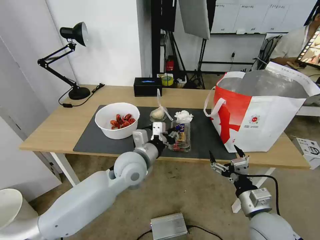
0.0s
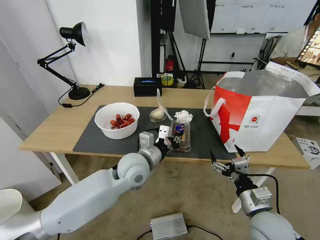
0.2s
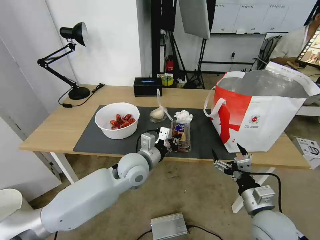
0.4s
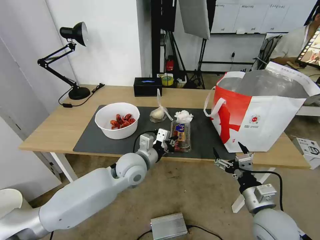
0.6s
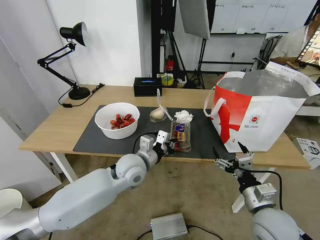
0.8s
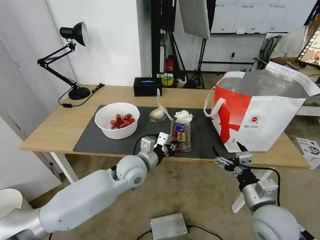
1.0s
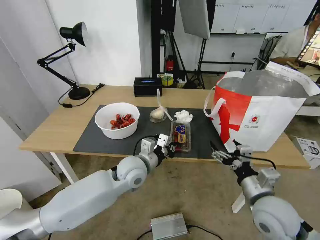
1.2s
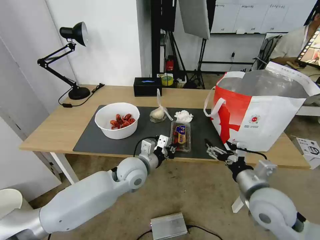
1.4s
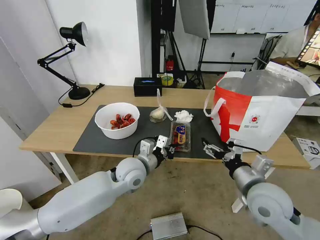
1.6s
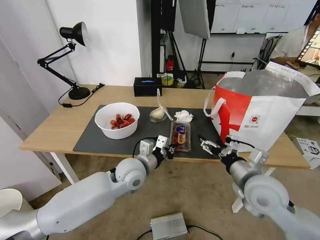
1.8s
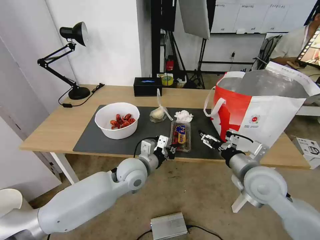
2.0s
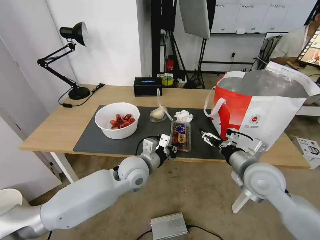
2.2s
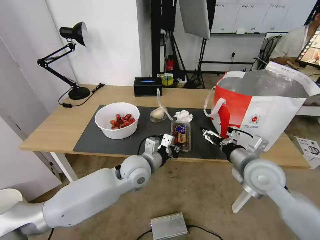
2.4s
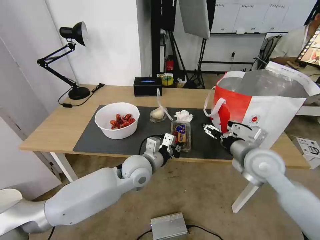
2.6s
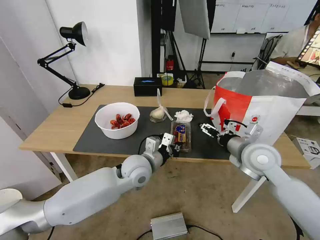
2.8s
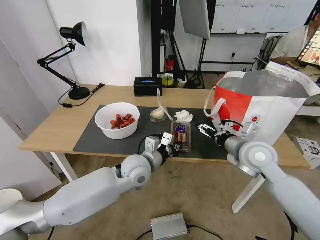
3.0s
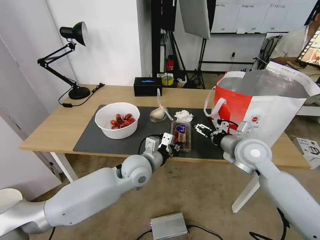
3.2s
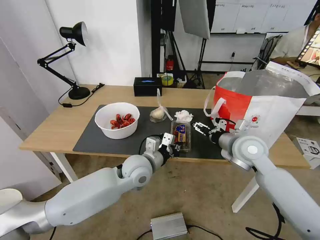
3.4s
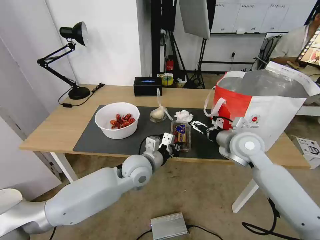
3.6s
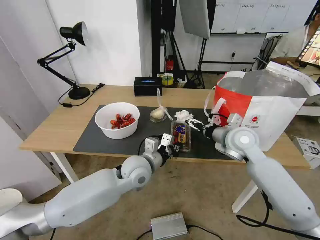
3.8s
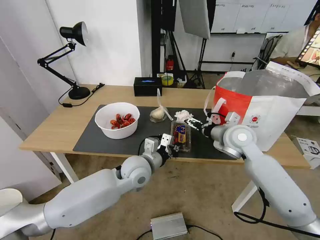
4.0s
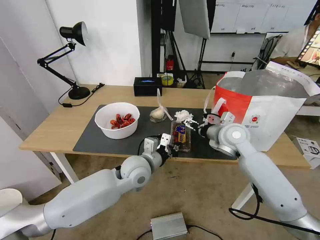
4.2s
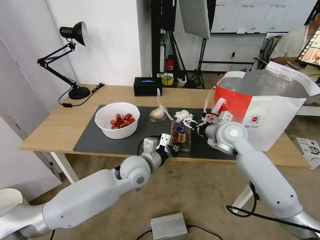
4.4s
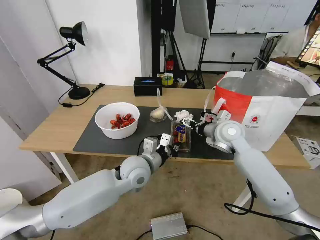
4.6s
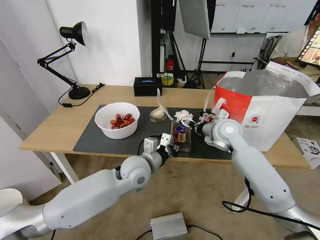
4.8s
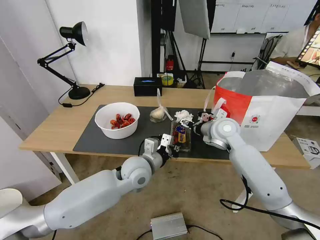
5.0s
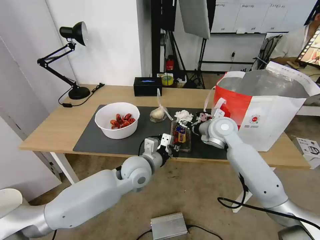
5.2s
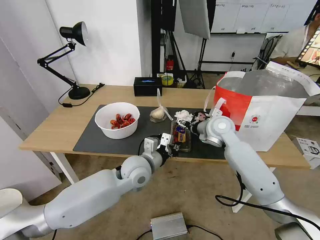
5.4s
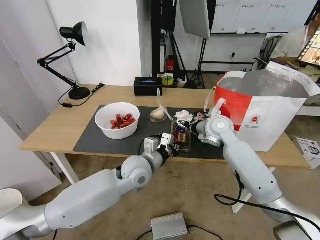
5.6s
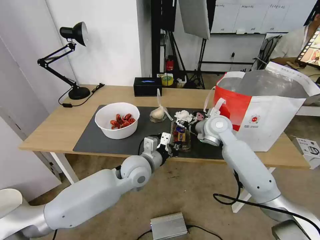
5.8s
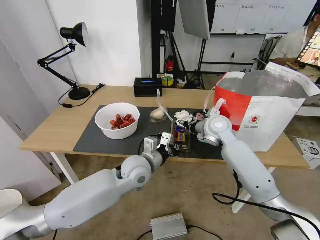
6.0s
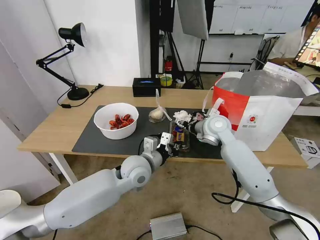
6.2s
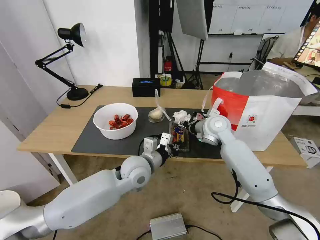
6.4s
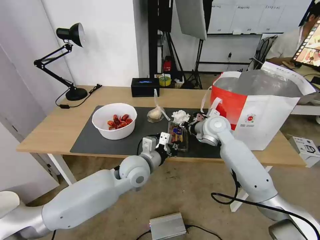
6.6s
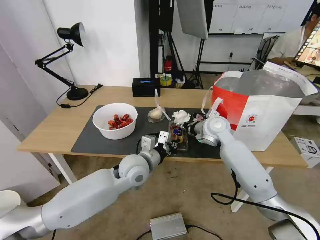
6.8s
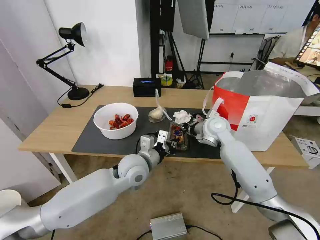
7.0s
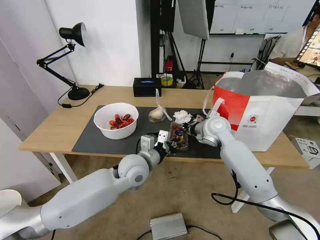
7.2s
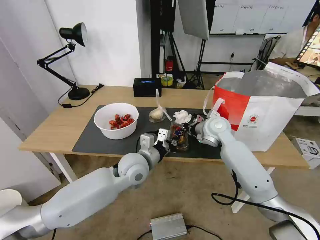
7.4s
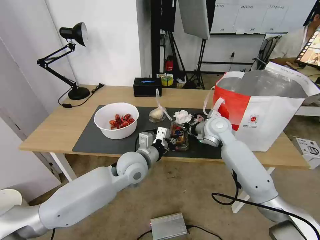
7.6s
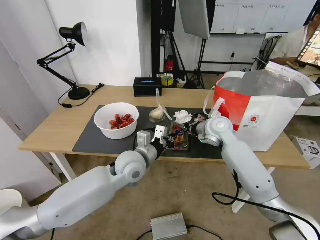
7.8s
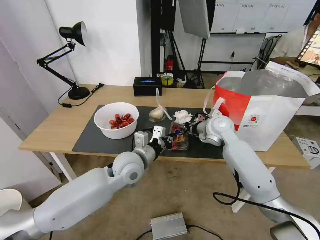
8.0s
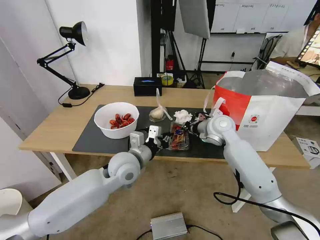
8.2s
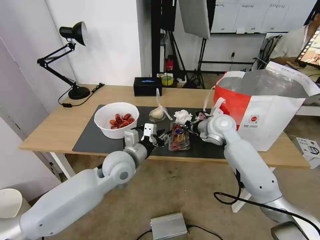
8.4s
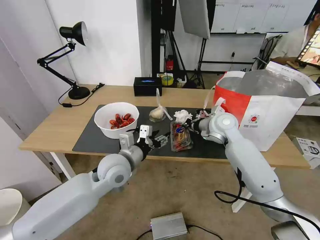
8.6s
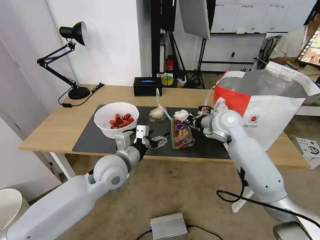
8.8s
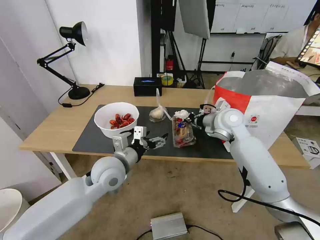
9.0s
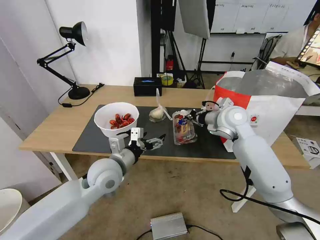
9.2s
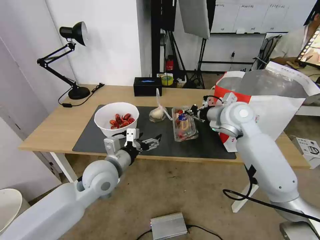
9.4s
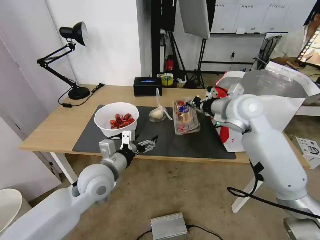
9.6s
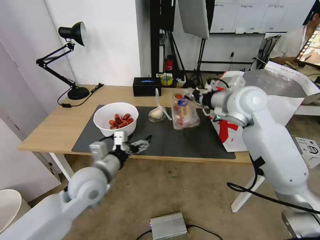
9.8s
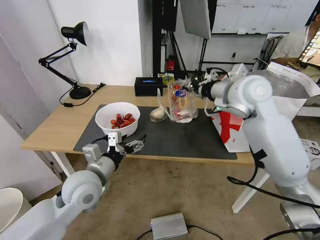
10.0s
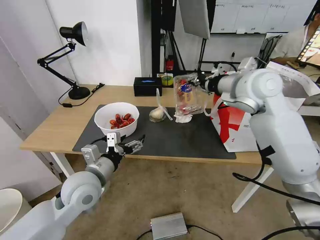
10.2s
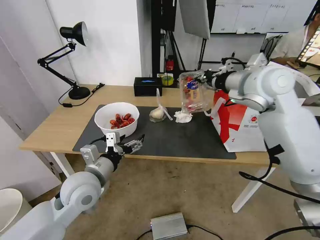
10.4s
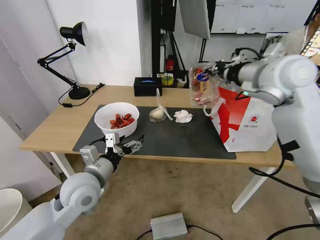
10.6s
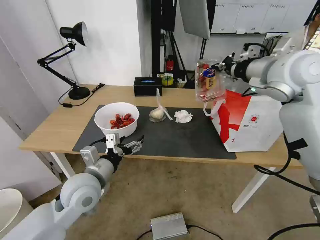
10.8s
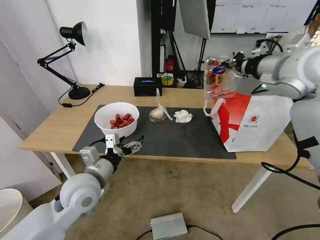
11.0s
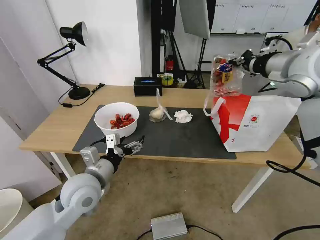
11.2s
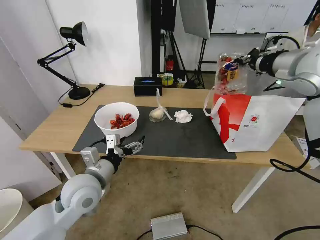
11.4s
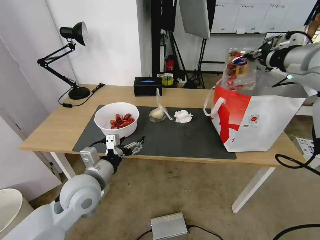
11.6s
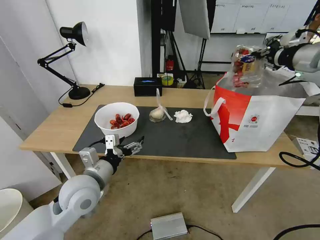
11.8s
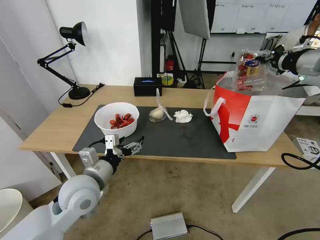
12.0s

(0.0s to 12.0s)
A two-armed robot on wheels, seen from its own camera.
Task of the whole recording: Pick up the trash from the table and place it into the takeout bag.
0.0s - 1.6s: The right gripper moves upward and forward, approximately 10 cm.
1.6s - 3.0s: The right gripper goes about 10 cm forward.
3.0s - 4.4s: The right gripper shifts approximately 10 cm forward.
4.4s - 6.0s: The right gripper ends up about 5 cm from where it was.
6.0s - 7.6s: The right gripper closes.
7.6s - 9.0s: The left gripper heads to the left, covering some 5 cm, and opens up, while the right gripper moves roughly 5 cm.
9.0s - 10.4s: The left gripper travels to the left and backward by some 10 cm, while the right gripper is displaced upward by roughly 15 cm.
10.4s - 12.0s: The right gripper shifts about 15 cm to the right.

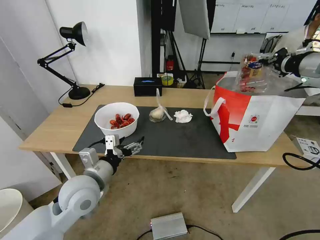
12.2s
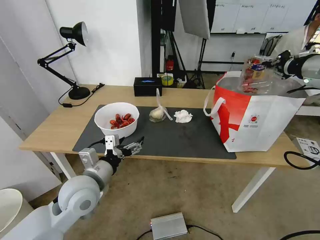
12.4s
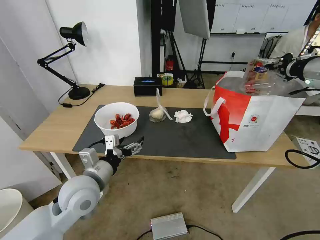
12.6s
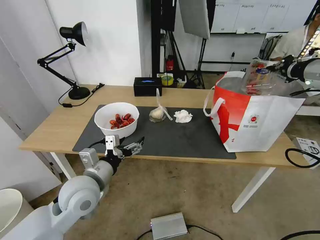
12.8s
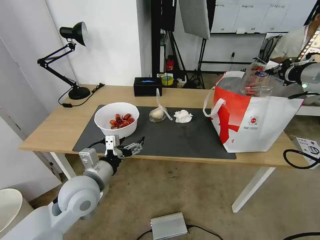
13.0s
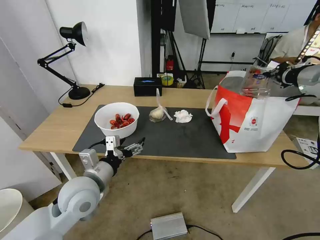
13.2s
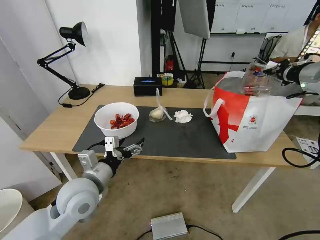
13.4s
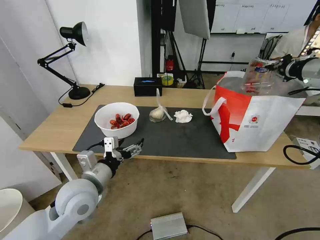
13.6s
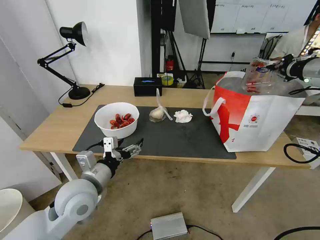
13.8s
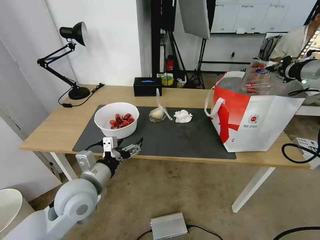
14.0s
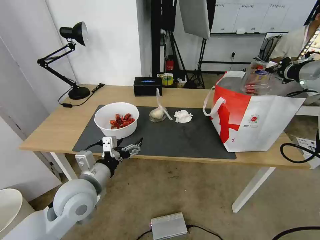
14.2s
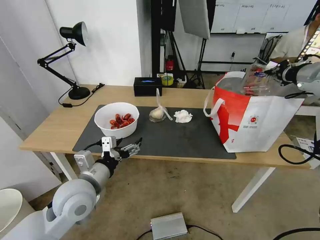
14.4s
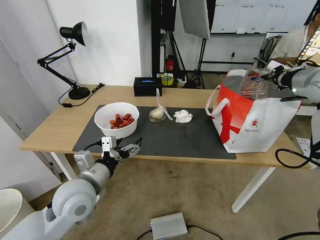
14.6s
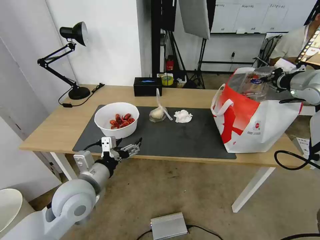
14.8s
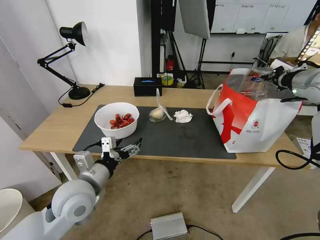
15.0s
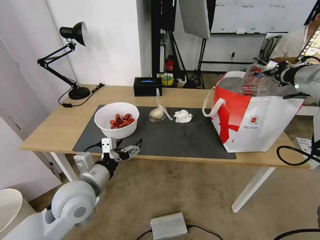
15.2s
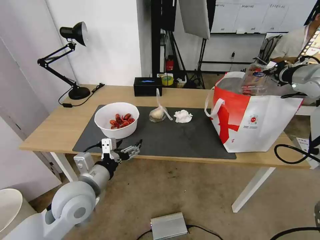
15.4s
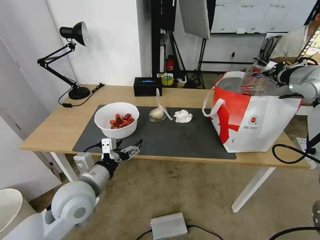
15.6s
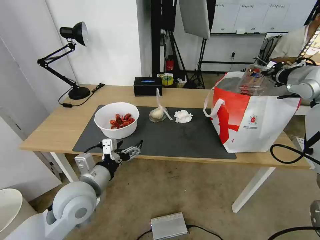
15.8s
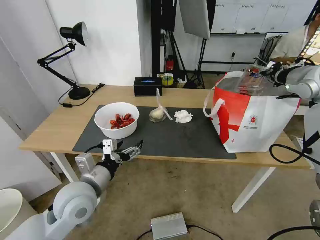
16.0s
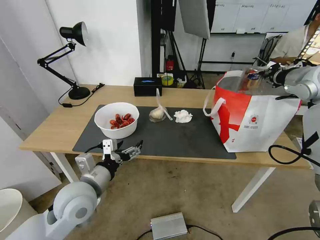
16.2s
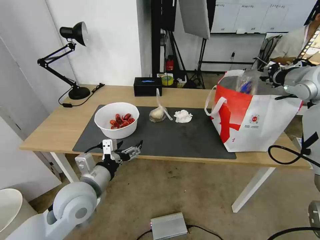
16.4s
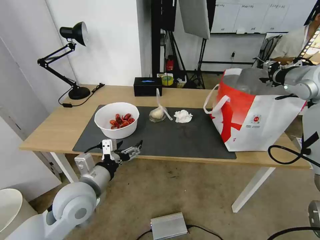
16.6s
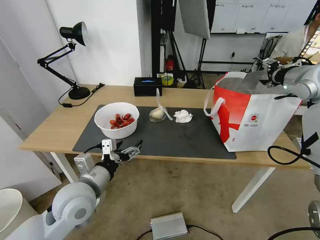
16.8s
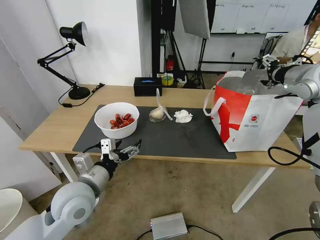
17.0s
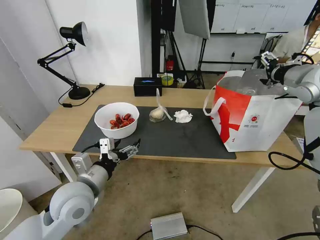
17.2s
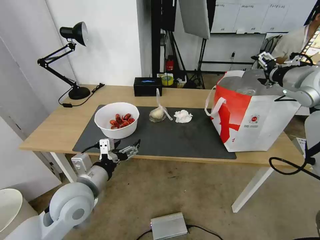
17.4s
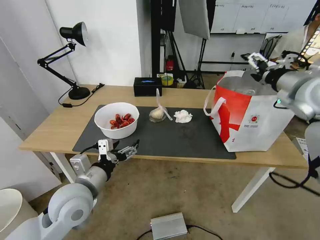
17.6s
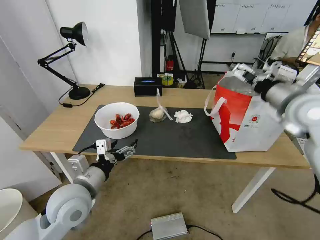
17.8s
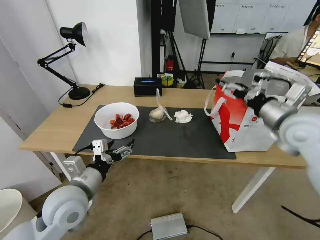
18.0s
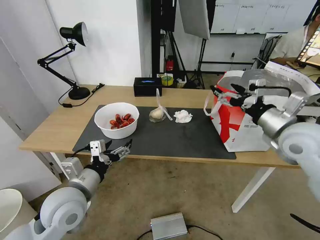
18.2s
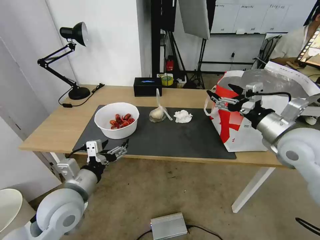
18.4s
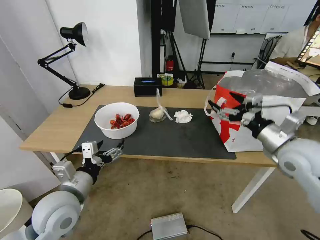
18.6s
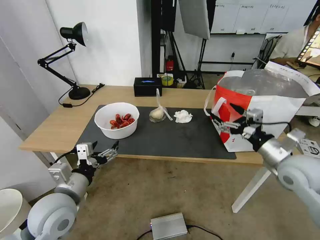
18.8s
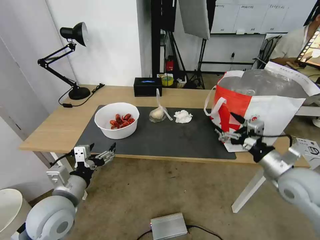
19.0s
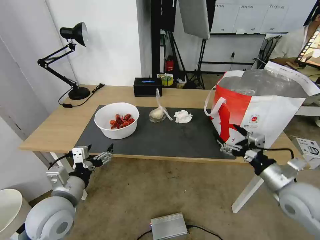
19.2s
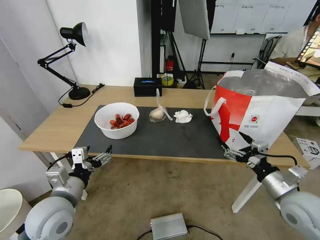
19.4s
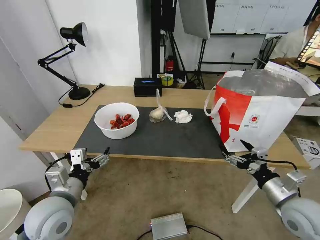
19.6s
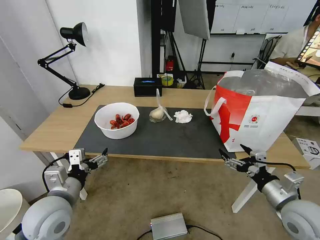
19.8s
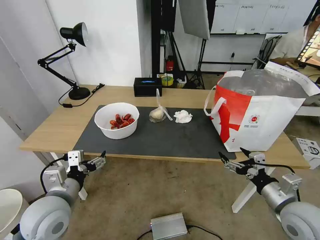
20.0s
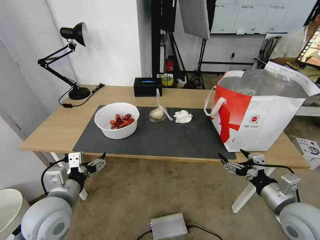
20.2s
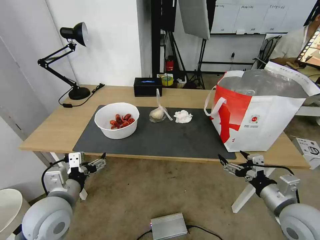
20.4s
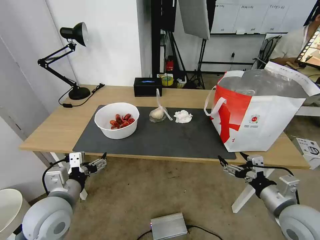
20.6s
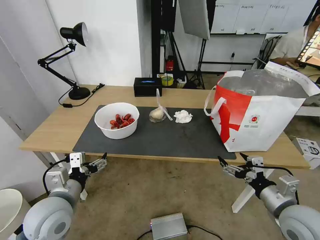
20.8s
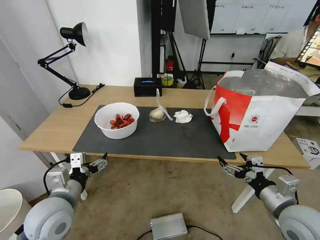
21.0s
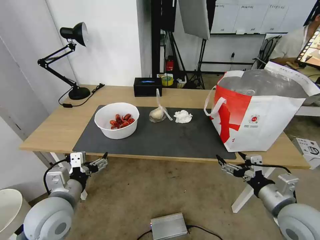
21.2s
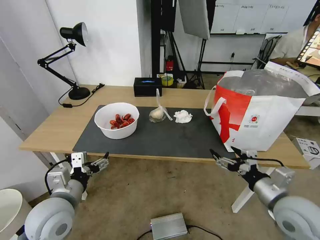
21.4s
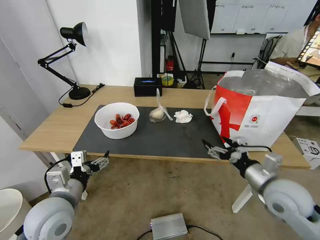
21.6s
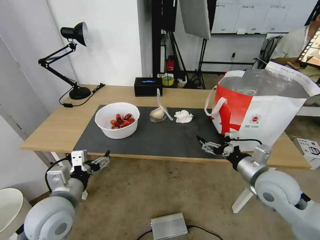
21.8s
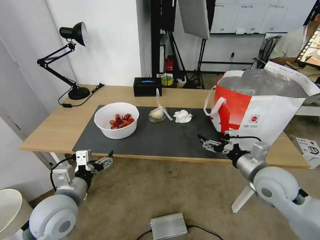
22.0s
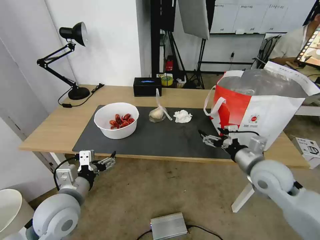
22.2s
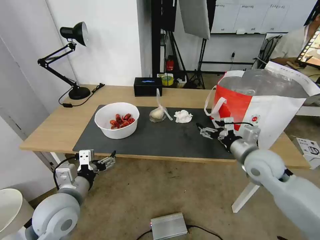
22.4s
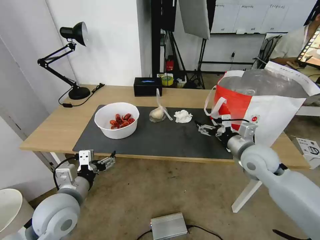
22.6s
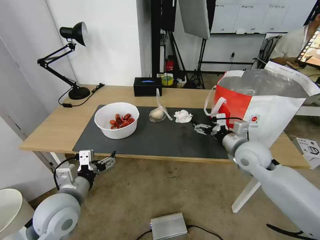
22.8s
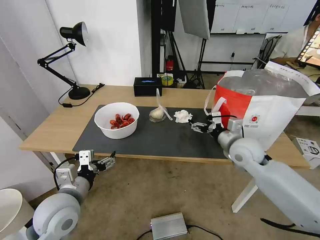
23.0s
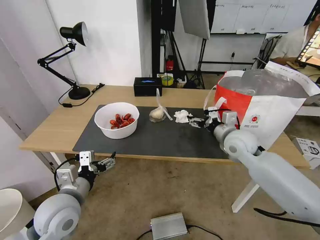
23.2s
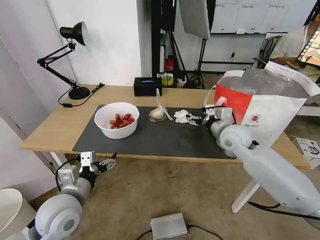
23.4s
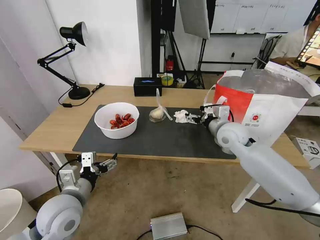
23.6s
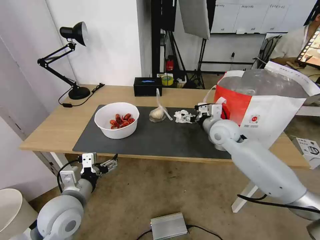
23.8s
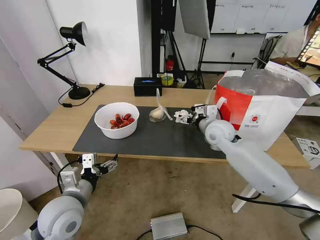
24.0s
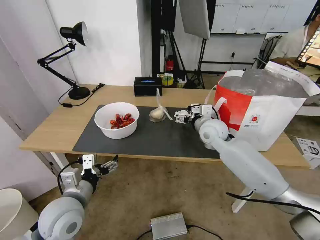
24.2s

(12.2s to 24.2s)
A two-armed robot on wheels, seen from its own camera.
Task of the whole recording: Pick up the trash from the table and place it into the takeout bag.
12.2s - 13.8s: The right gripper ends up some 5 cm from where it was.
13.8s - 15.2s: The grippers move only a little.
15.2s - 16.6s: The right gripper opens up.
16.6s - 18.2s: The right gripper is displaced backward, to the left and downward by approximately 20 cm, and opens.
18.2s - 19.8s: The right gripper is displaced downward and backward by about 20 cm.
19.8s - 21.2s: The grippers move only a little.
21.2s - 22.6s: The right gripper shifts approximately 15 cm forward.
22.6s - 24.2s: The right gripper heads forward and to the left, covering some 15 cm.
